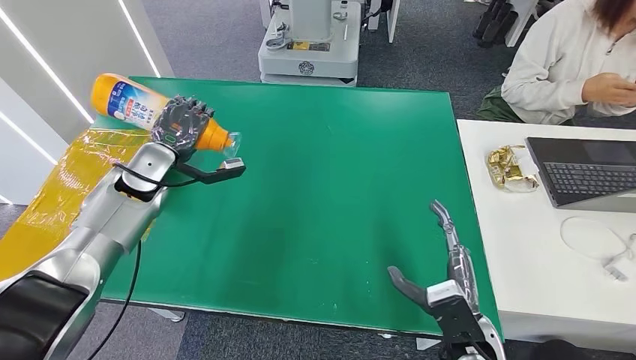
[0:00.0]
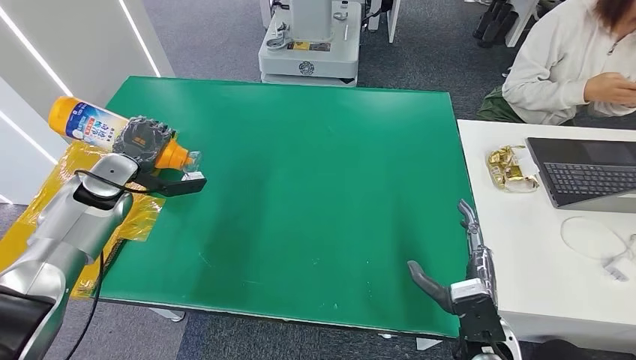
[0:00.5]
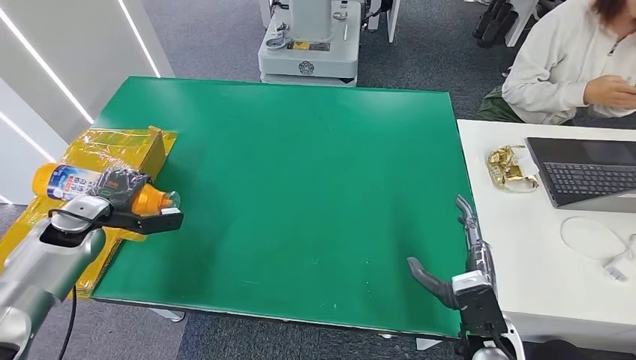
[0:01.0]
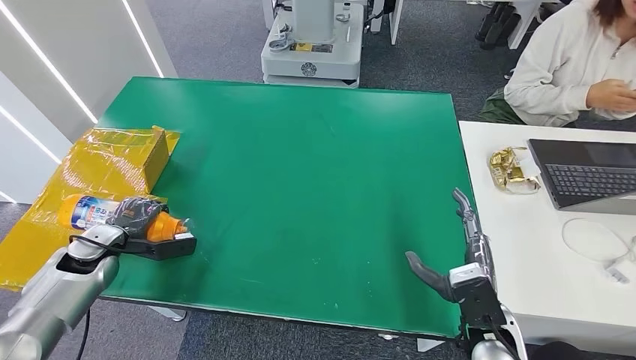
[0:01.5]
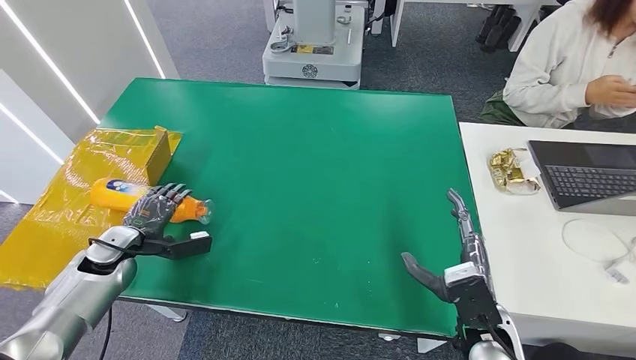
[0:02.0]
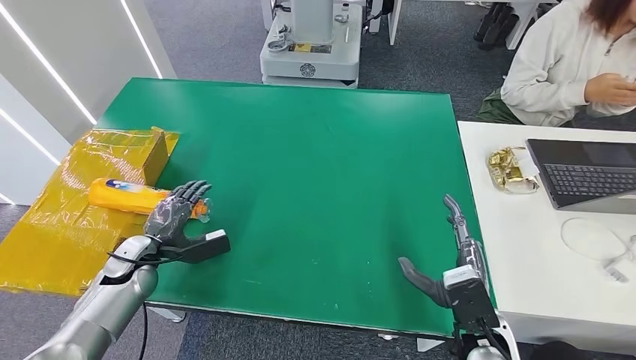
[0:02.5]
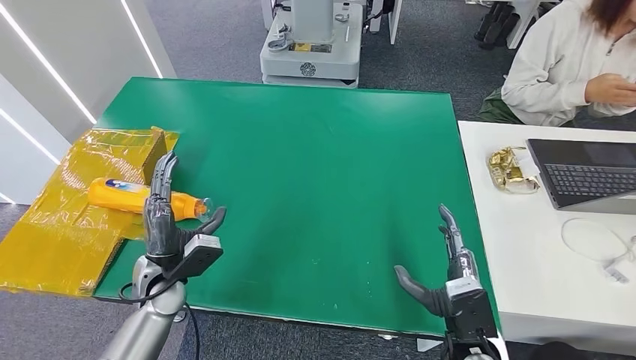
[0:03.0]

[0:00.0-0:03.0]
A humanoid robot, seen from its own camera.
Step, 0:00.0 to 0:03.0: Turn the bottle to the front side.
0:01.5 to 0:03.0: The left hand moves to the right, roughly 15 cm.
